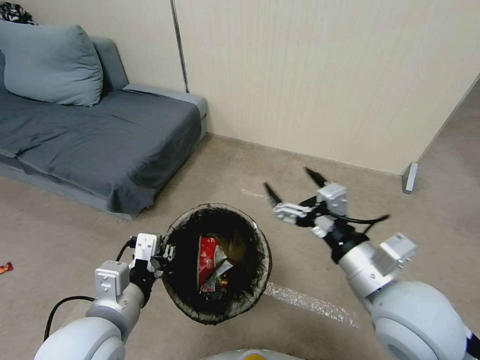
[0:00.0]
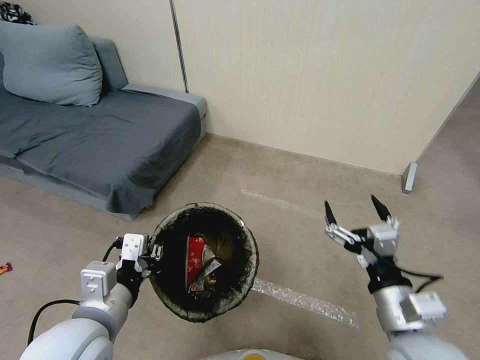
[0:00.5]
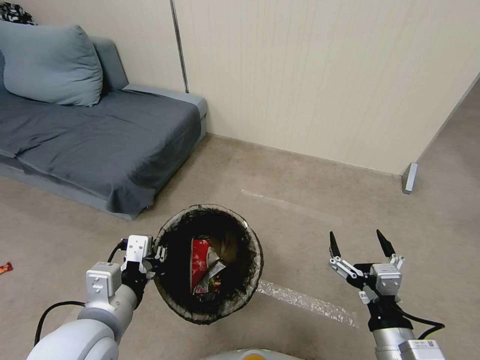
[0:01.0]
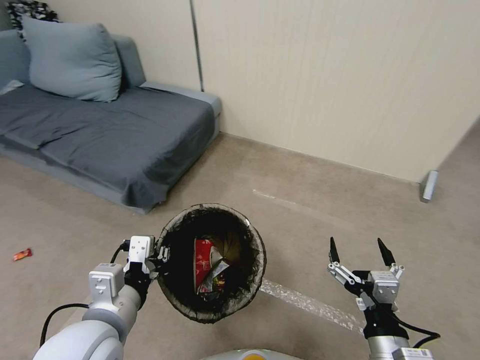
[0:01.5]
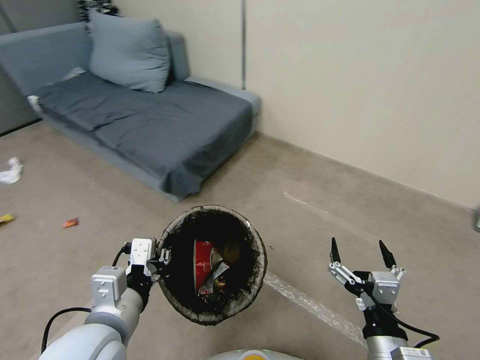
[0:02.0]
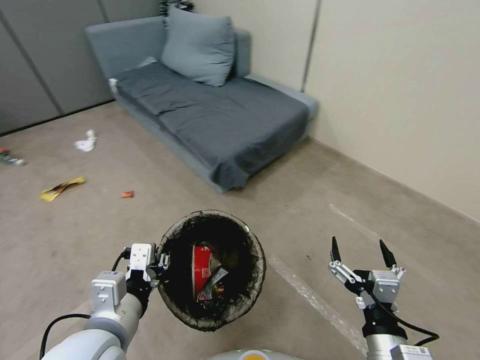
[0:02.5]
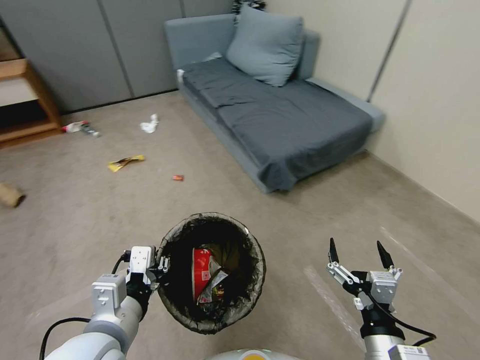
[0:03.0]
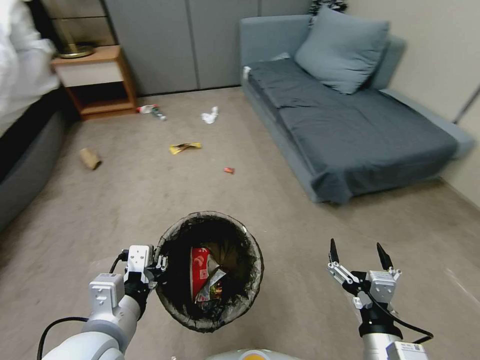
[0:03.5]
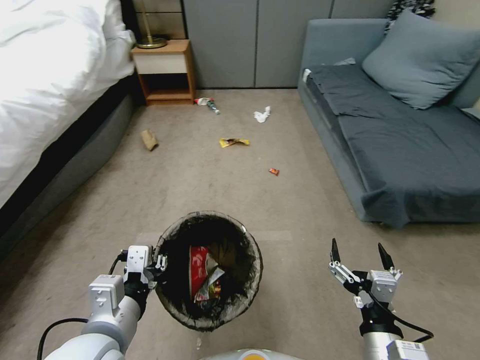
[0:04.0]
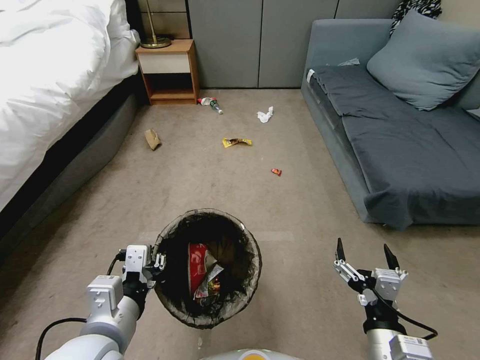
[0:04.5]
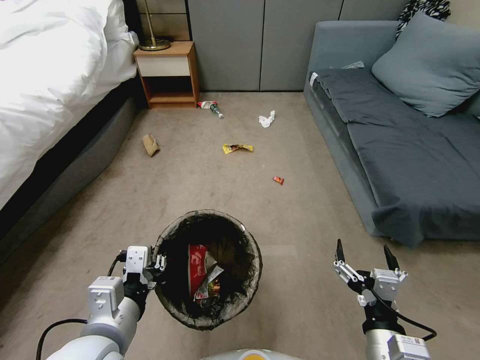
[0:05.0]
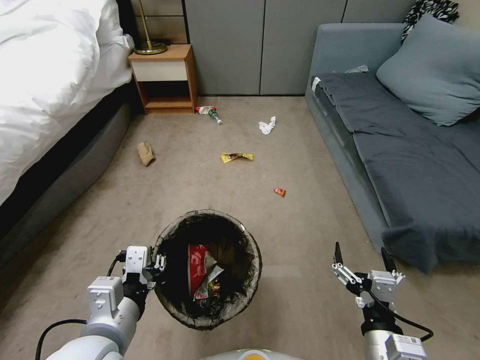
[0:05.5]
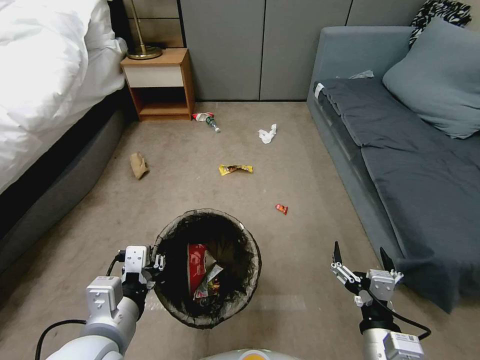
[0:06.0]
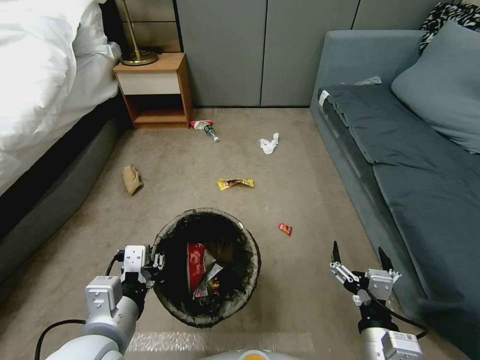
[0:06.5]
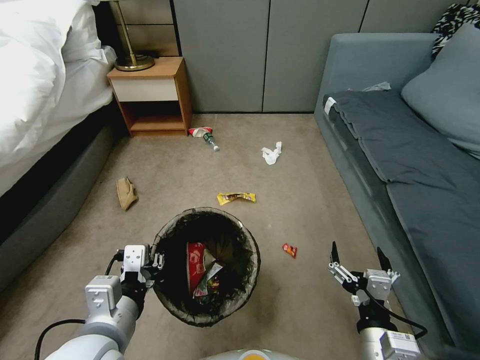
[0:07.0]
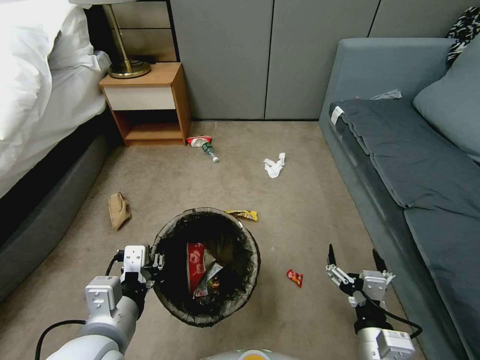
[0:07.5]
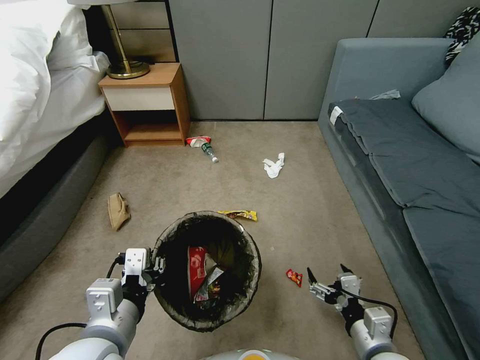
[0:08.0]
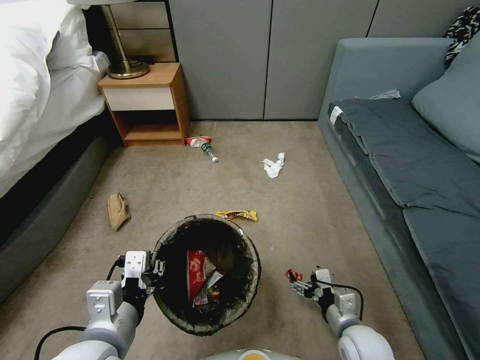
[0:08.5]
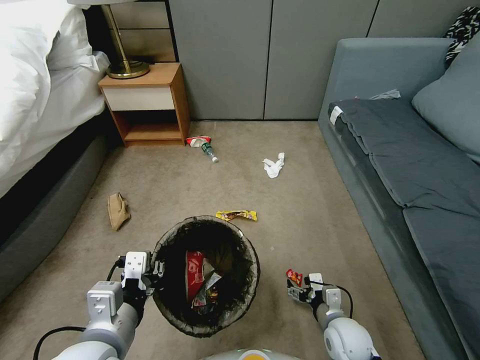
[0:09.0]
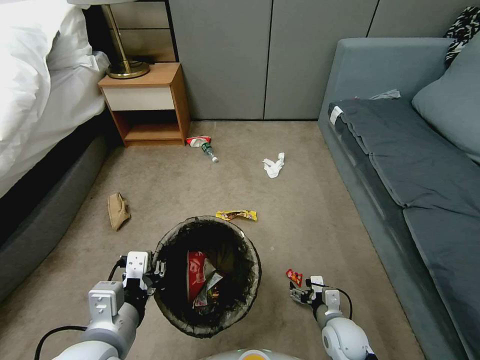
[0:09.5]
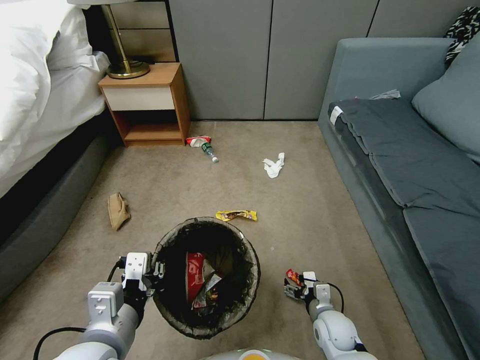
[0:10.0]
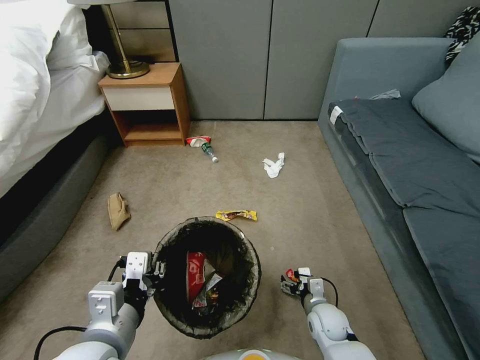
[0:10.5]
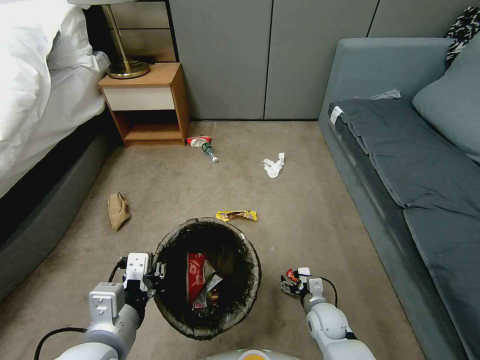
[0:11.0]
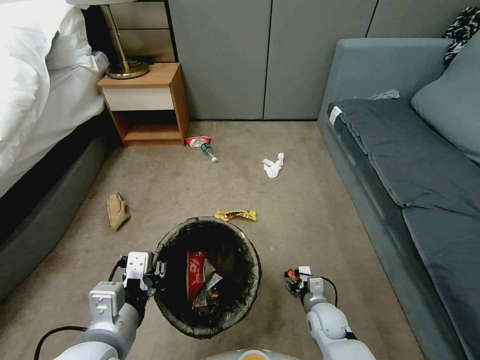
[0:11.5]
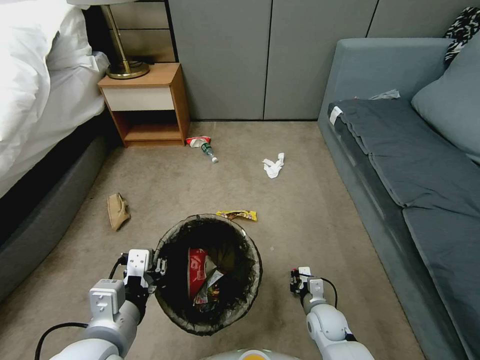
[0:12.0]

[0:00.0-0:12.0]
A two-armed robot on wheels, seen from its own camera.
Task of the whole recording: Pick up the trash bin, then pick up the garbage from the floor and place it into the trash bin.
0:00.0 to 0:02.0: The right gripper travels downward and backward by some 20 cm.
0:06.0 to 0:08.0: The right gripper is displaced downward by about 5 cm.
0:08.0 to 0:10.0: The right gripper heads downward and forward, covering about 20 cm.
0:10.0 to 0:12.0: The right gripper closes.

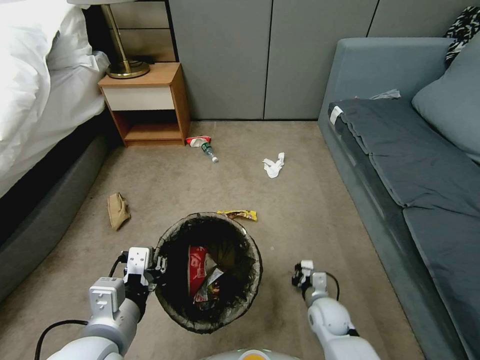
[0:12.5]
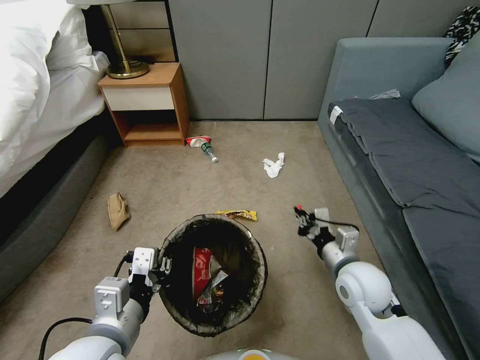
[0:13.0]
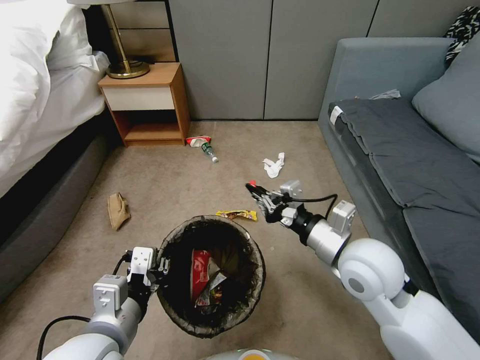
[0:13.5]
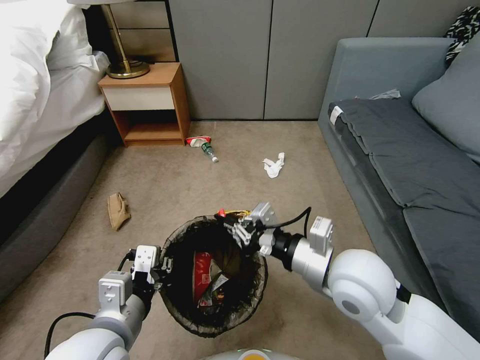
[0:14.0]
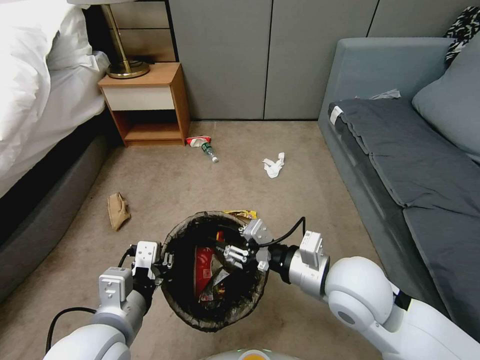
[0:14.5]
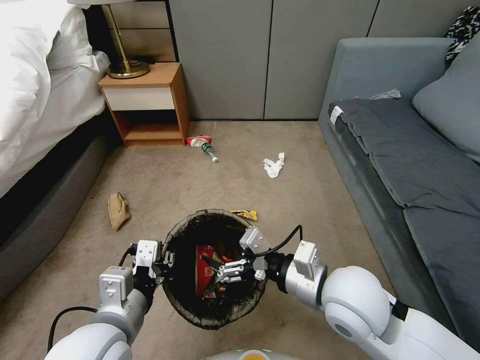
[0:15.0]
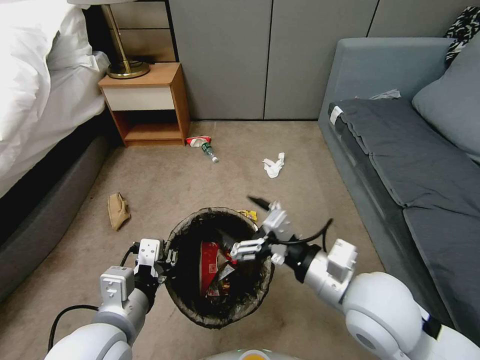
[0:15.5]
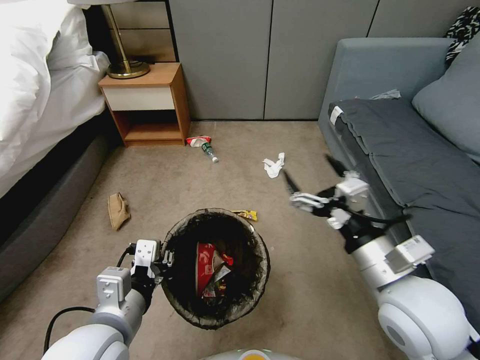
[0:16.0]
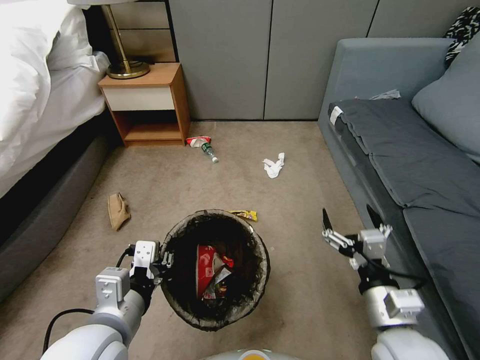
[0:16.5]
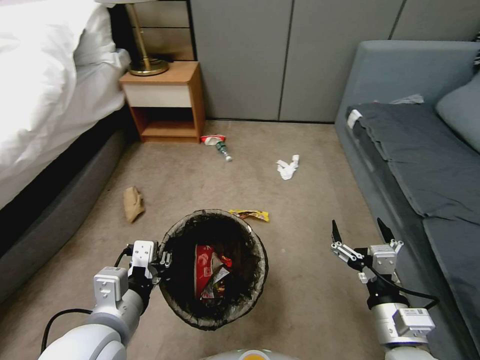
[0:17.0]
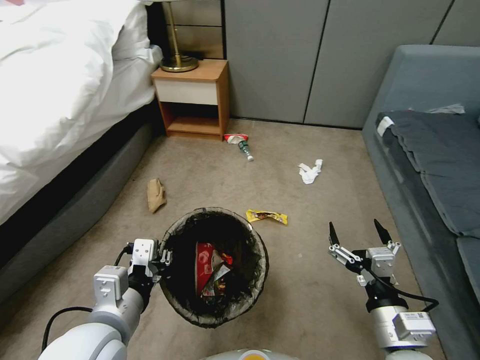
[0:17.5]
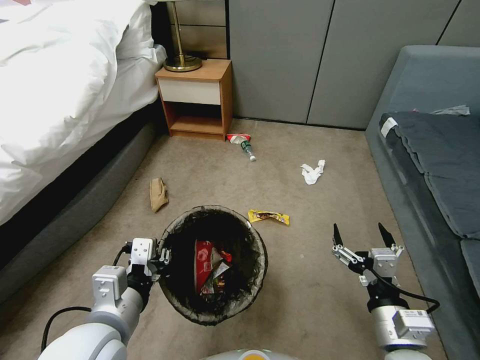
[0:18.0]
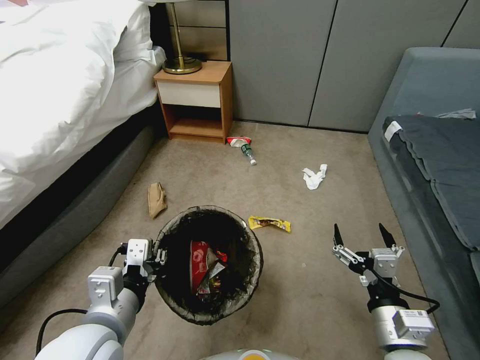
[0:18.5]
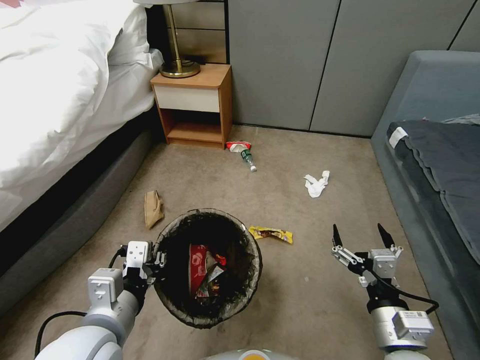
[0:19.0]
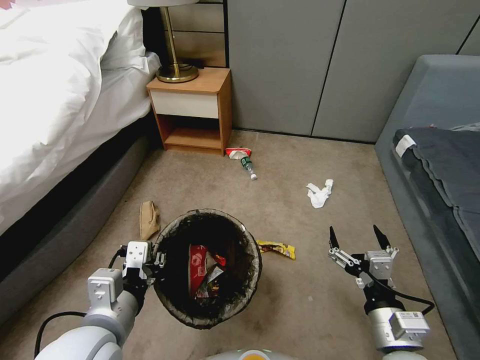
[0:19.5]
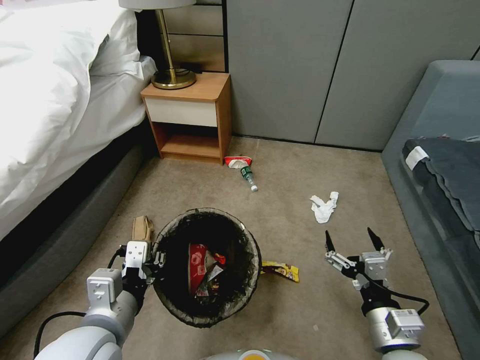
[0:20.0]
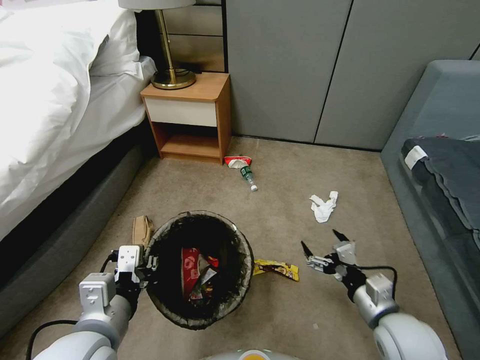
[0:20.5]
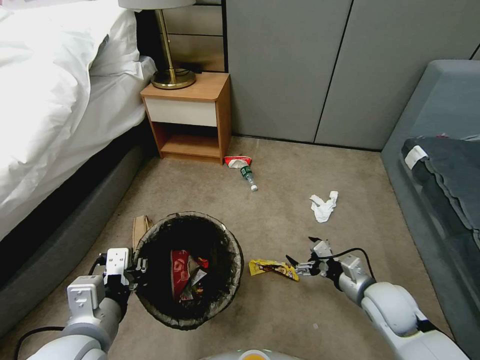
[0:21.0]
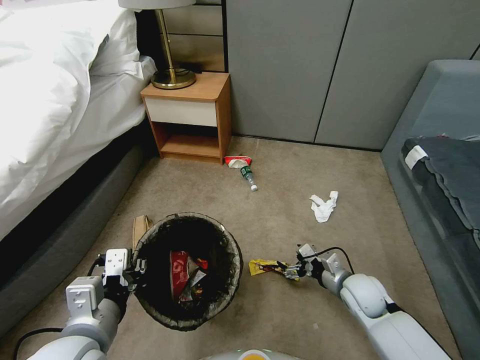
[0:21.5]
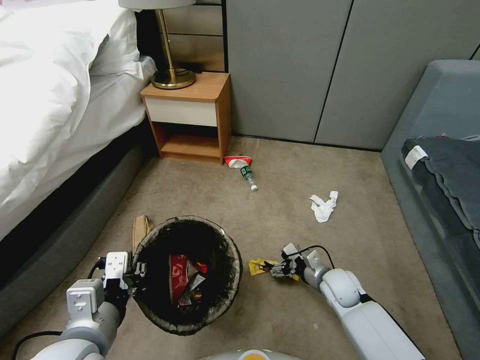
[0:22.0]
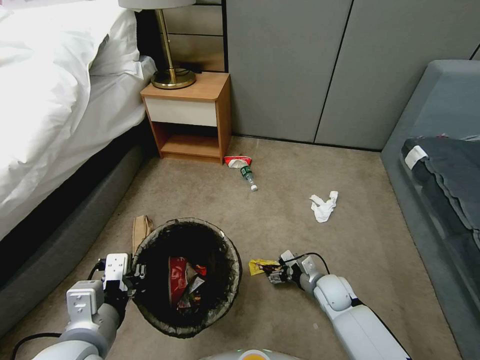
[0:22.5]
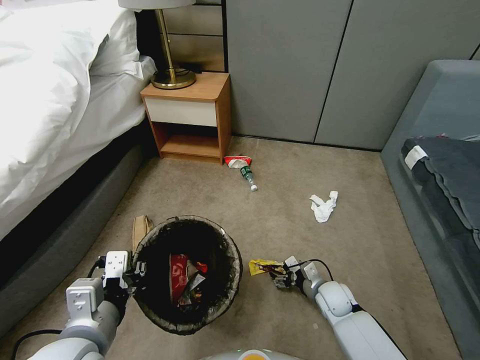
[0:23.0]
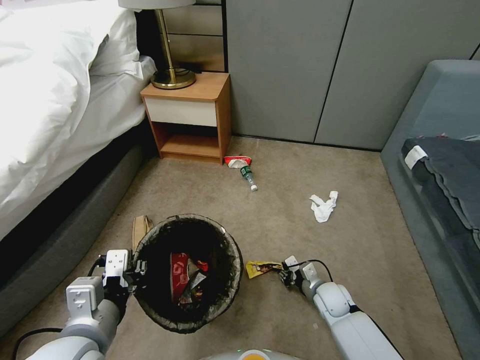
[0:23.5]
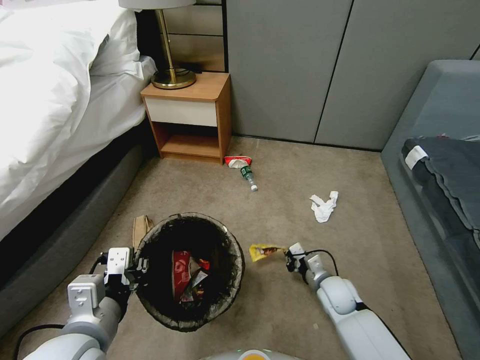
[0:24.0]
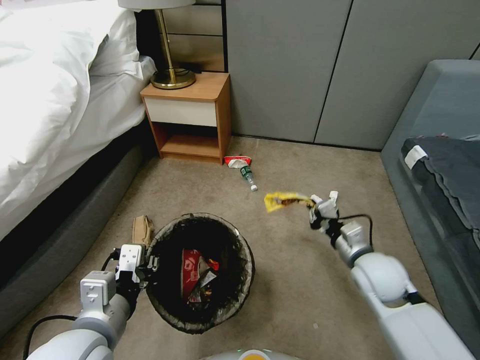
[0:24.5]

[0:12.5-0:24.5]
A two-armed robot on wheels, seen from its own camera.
Task of the whole recording: Pick up the trash bin, then pick up the garbage from the floor and place it into the trash bin.
0:12.5 to 0:14.5: The right gripper moves upward, approximately 30 cm, and opens.
0:14.5 to 0:16.5: The right gripper goes some 15 cm backward, to the right and downward, and opens its fingers.
0:18.5 to 0:20.5: The right gripper goes approximately 5 cm forward.
0:20.5 to 0:22.5: The right gripper goes approximately 20 cm downward and forward.
0:22.5 to 0:24.5: The right gripper is displaced upward by approximately 20 cm, and closes.

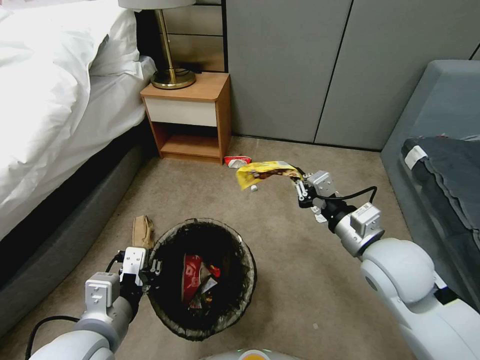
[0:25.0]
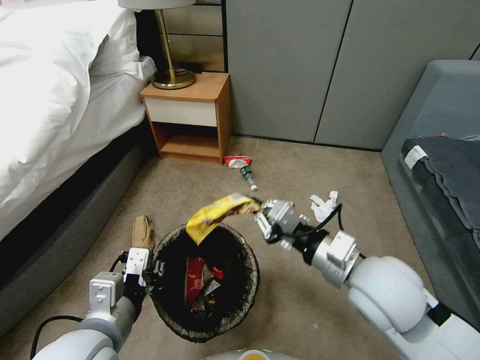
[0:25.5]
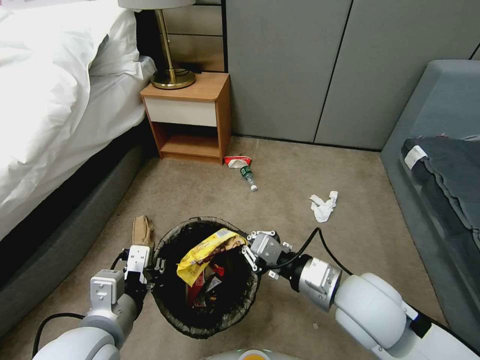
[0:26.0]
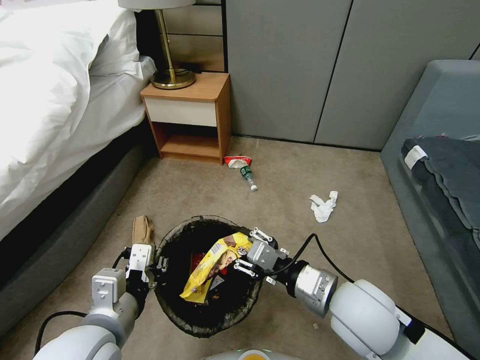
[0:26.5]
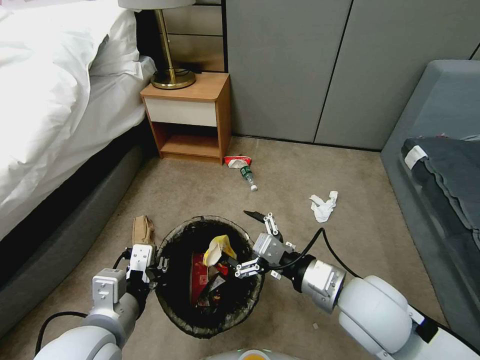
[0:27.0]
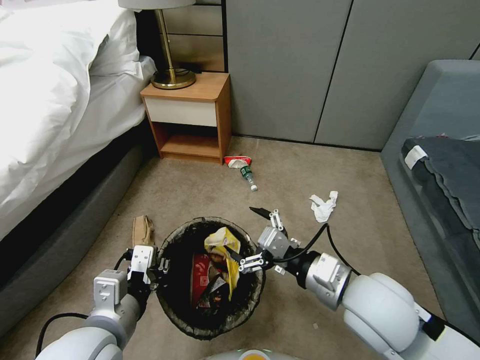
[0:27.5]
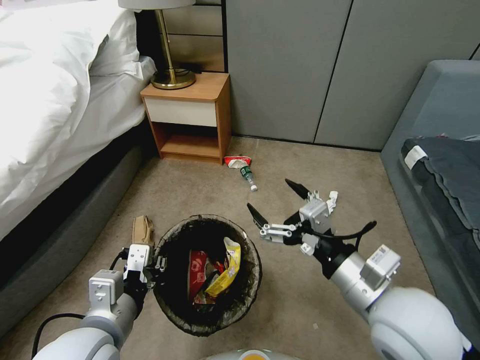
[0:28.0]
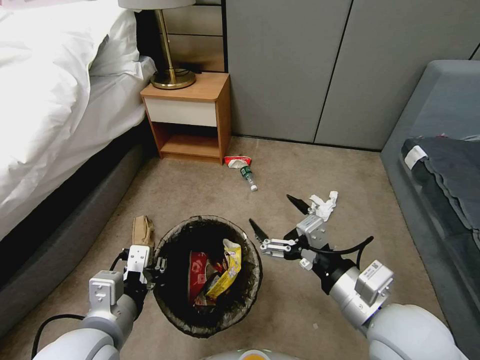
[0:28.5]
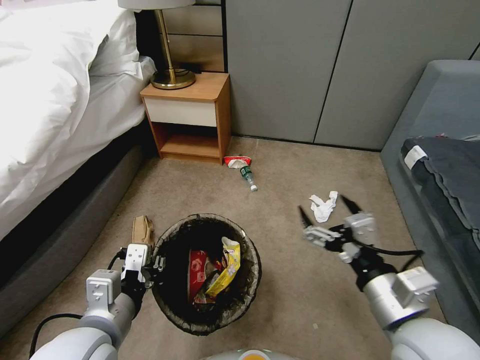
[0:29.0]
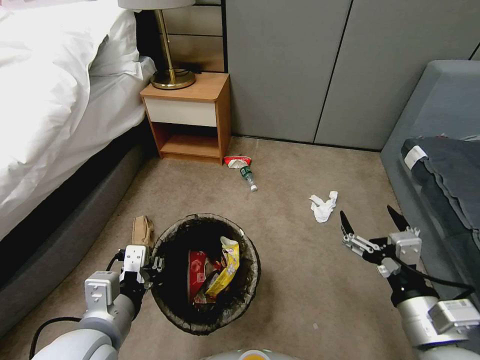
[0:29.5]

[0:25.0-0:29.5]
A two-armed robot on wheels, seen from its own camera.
Task of the whole recording: Pick up the trash bin, then pick up the garbage from the floor and place it into the trash bin.
0:25.0 to 0:27.0: The right gripper heads backward and to the left, covering roughly 10 cm, and opens up.
0:27.0 to 0:29.5: The right gripper goes some 15 cm to the right and backward.
